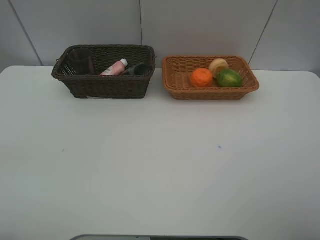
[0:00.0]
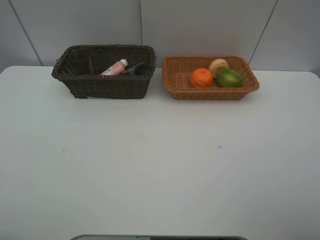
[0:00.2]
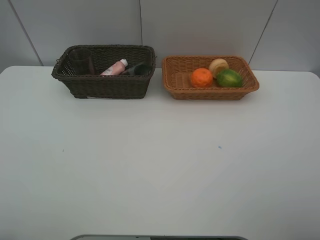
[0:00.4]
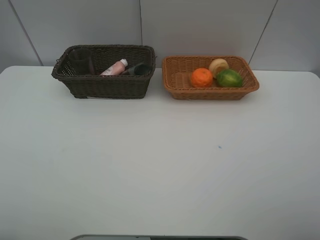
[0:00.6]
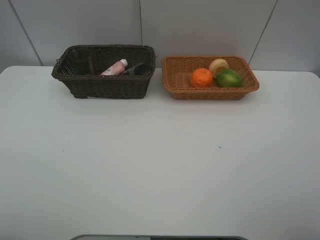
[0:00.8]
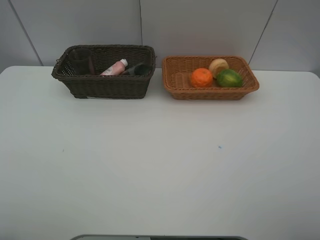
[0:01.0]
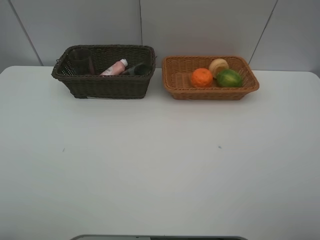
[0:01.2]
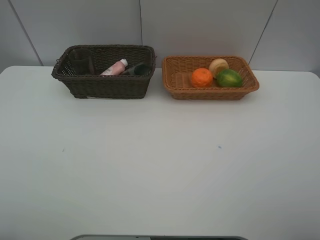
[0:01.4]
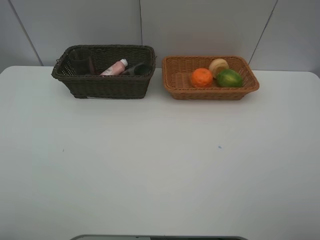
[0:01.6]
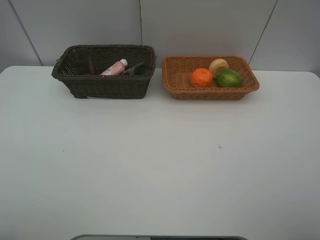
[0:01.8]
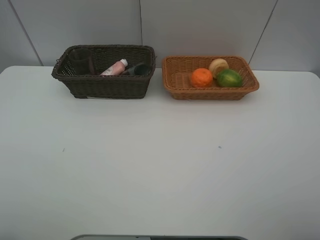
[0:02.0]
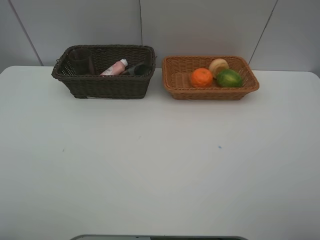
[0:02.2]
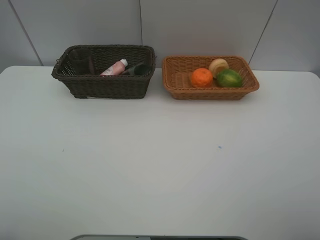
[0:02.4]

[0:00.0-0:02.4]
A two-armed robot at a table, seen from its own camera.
Task of the whole recording: place multiple objects separately in different baskets.
0:01.2 to 0:02.4: The two grippers keep their place.

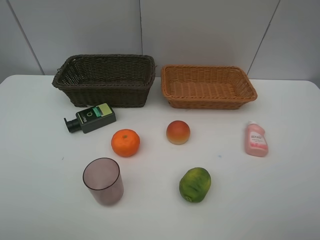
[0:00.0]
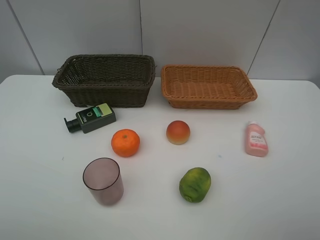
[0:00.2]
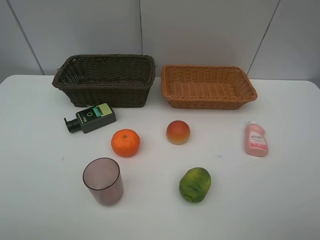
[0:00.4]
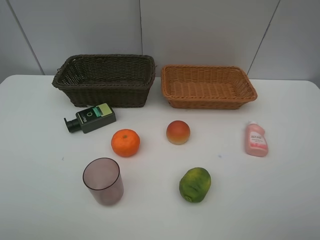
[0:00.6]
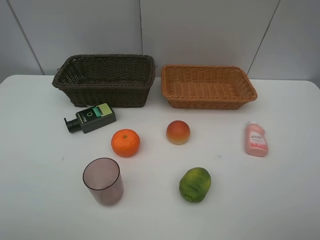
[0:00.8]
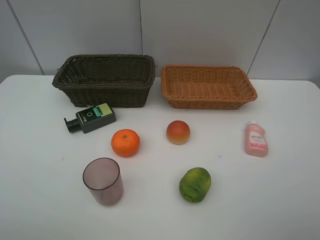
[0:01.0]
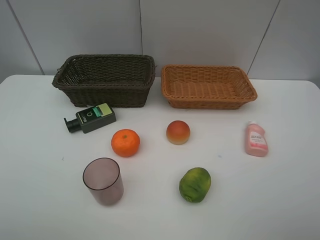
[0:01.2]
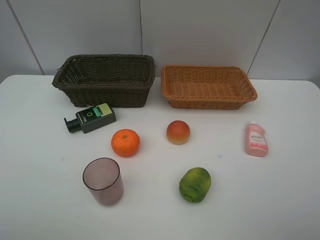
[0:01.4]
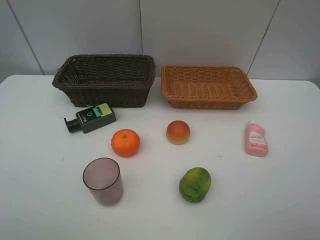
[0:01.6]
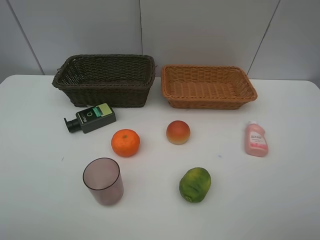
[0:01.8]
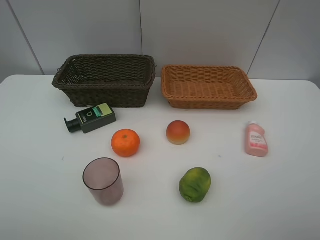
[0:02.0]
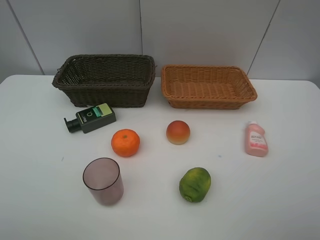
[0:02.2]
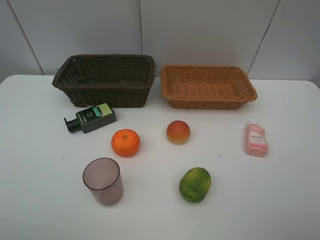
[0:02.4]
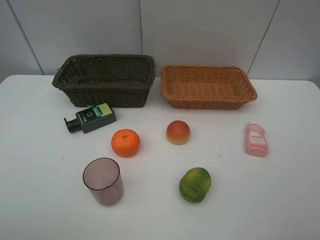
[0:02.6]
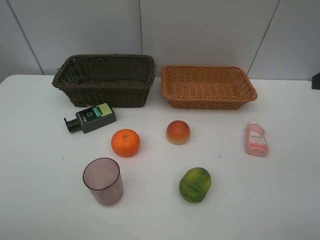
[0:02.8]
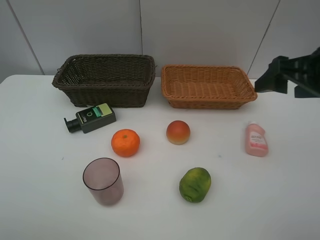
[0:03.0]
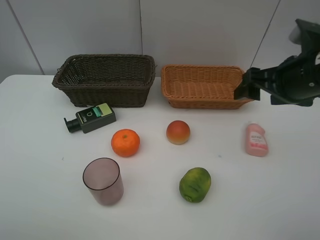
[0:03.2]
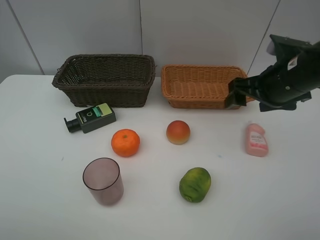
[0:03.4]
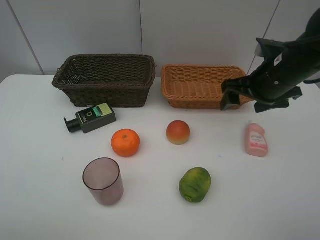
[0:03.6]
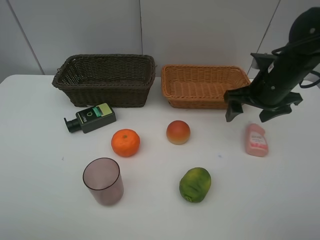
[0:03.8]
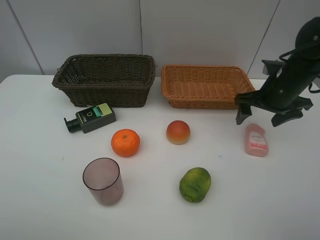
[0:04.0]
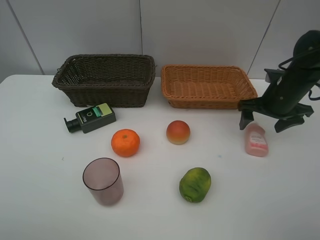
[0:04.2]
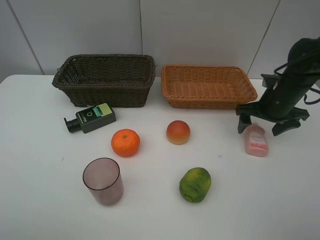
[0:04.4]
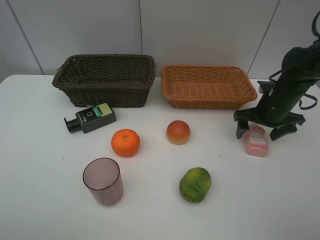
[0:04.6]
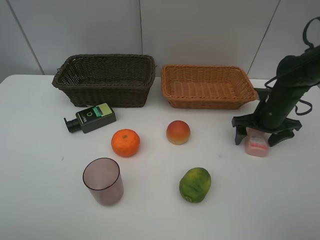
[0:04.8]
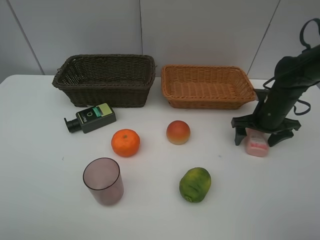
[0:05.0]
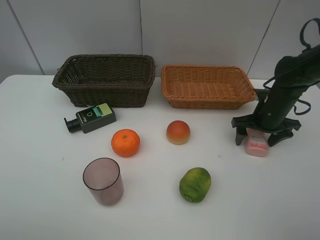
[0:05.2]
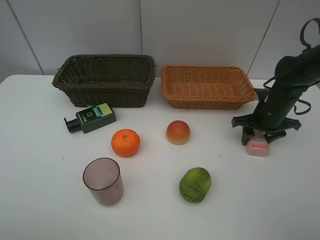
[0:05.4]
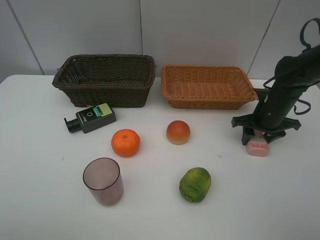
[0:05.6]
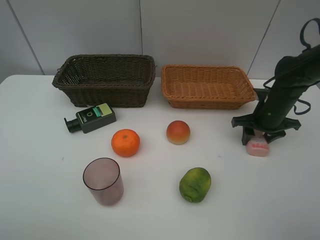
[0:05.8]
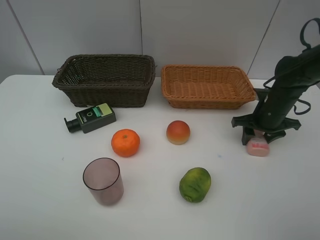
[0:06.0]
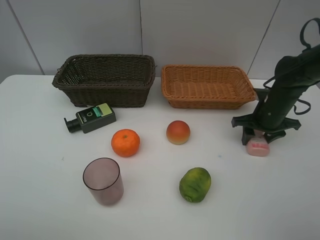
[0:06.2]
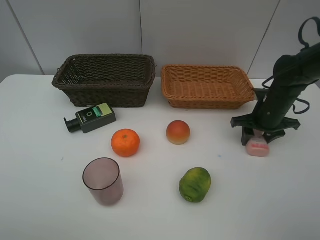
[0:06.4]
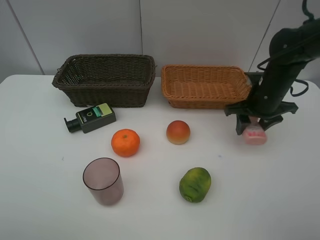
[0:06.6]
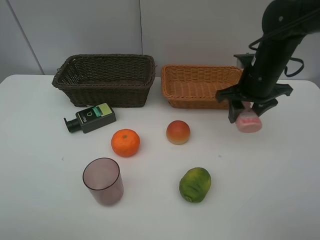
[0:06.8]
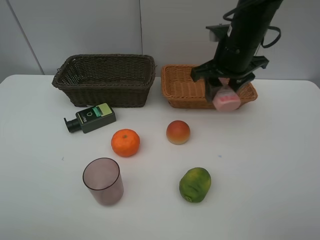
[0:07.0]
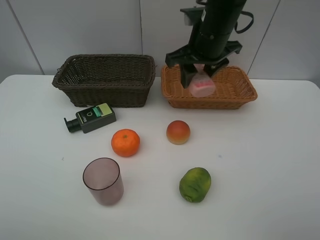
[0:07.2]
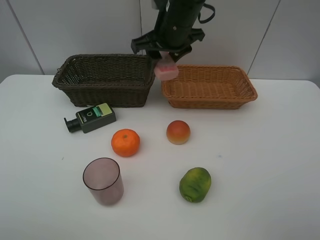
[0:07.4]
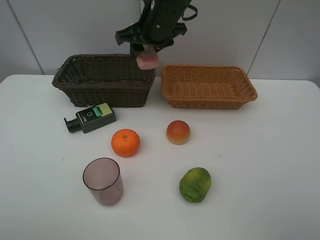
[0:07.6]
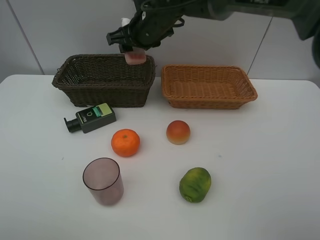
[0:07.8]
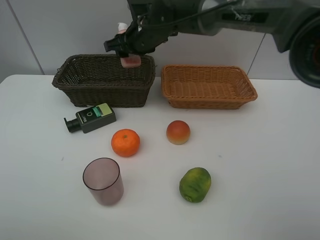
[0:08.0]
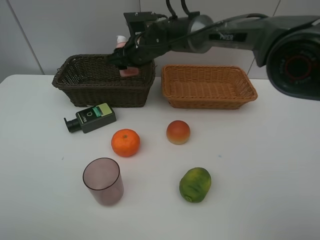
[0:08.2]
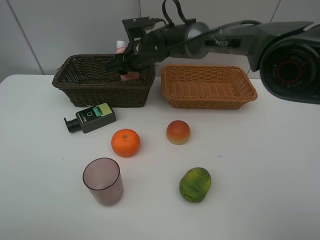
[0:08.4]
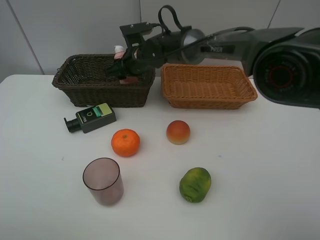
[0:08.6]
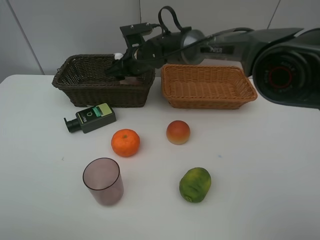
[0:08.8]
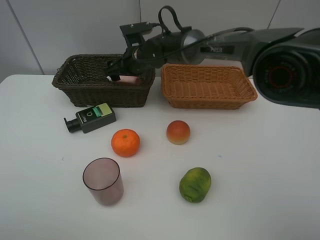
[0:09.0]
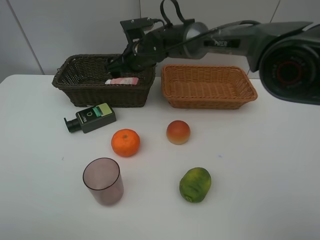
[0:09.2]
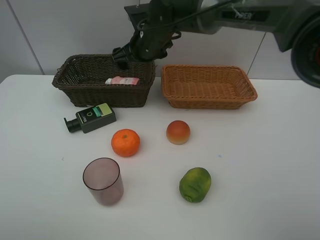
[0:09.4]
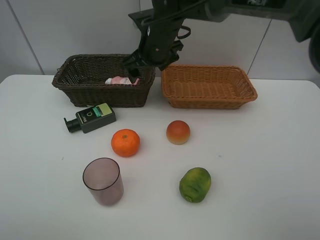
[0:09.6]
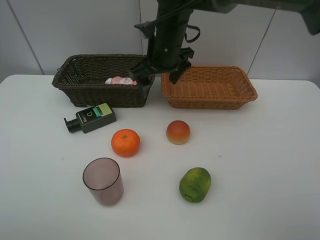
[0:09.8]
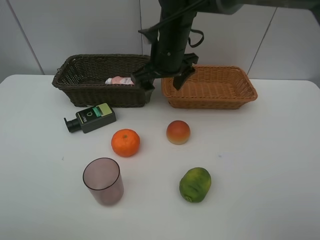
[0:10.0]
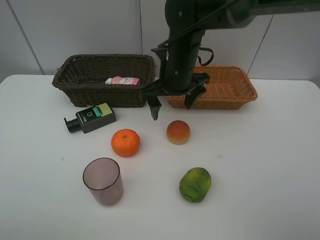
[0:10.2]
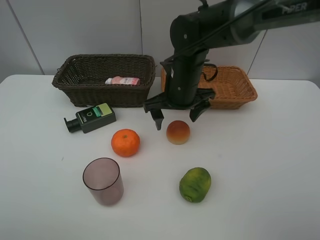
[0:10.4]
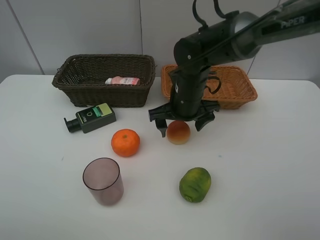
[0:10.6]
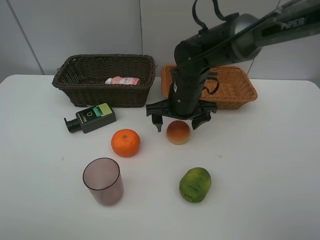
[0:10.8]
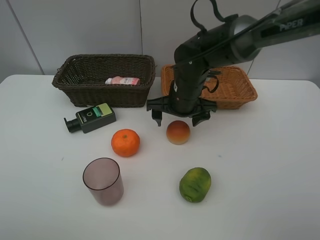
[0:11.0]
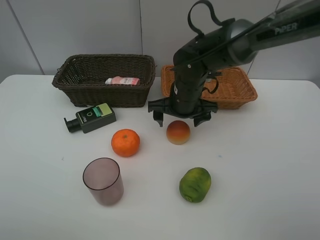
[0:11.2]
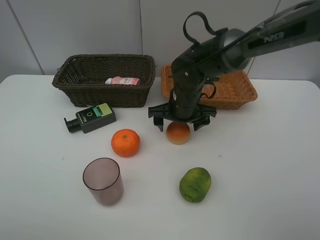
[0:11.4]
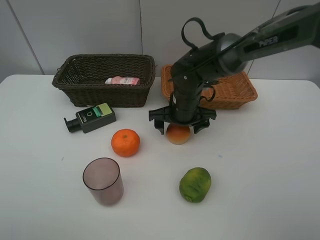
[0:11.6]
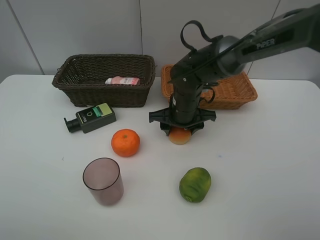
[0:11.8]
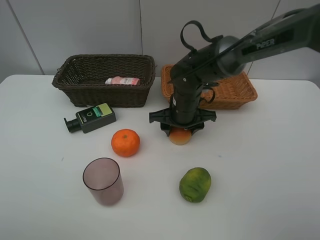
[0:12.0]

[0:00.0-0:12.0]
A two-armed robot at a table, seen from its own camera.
Task of the whole recording: place multiple objects separately in different baskets.
0:00.0 to 0:01.6: Neither gripper changes place.
0:01.6 to 0:03.0: The right gripper moves forward, about 20 cm.
0:03.0 to 0:04.4: The right gripper goes approximately 20 cm downward and forward.
0:04.4 to 0:06.0: The right gripper closes.
0:06.0 to 0:07.6: The right gripper heads to the left and upward, covering about 30 cm.
0:07.6 to 0:09.0: The right gripper goes some 10 cm downward, and opens its fingers.
0:09.0 to 0:10.4: The right gripper travels backward and to the right by approximately 15 cm.
0:10.4 to 0:12.0: The right gripper moves downward, roughly 5 cm, and closes up.

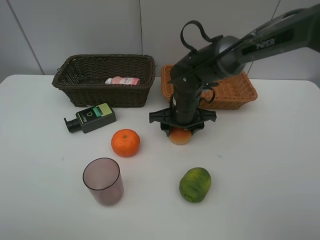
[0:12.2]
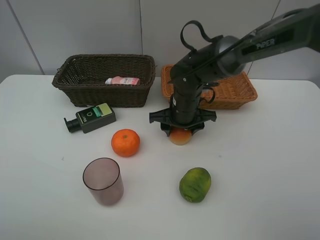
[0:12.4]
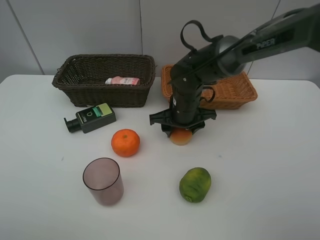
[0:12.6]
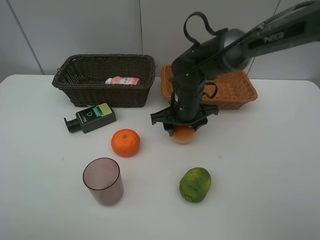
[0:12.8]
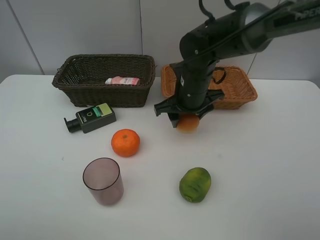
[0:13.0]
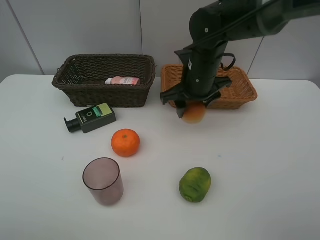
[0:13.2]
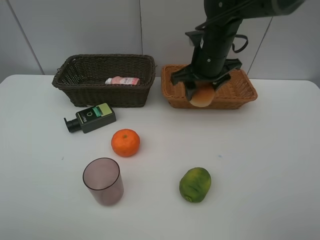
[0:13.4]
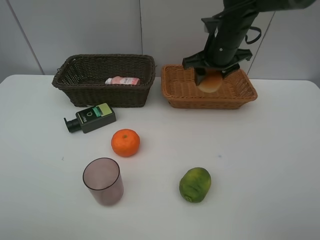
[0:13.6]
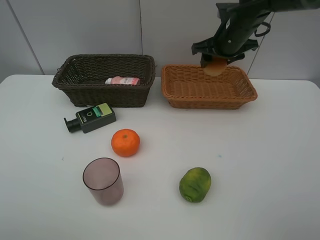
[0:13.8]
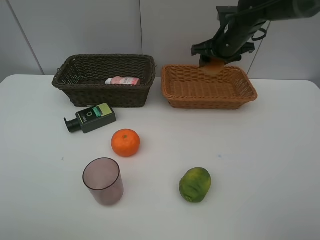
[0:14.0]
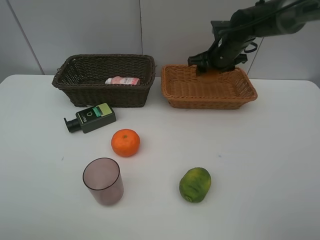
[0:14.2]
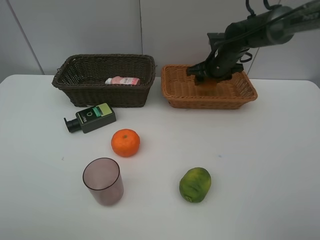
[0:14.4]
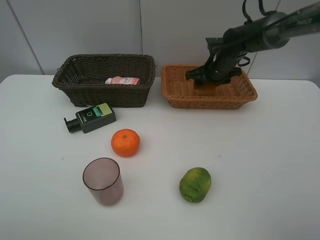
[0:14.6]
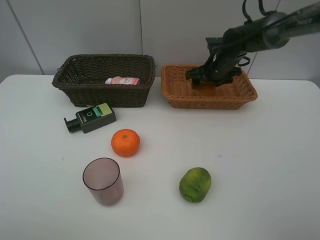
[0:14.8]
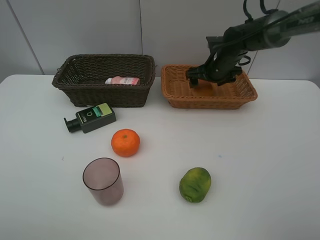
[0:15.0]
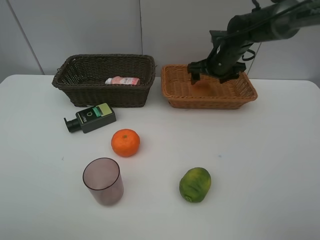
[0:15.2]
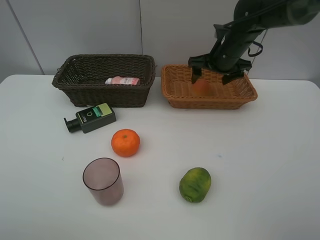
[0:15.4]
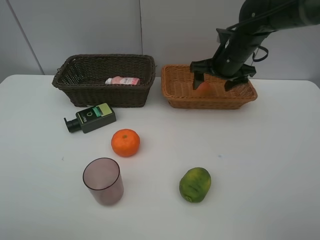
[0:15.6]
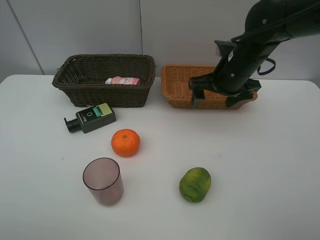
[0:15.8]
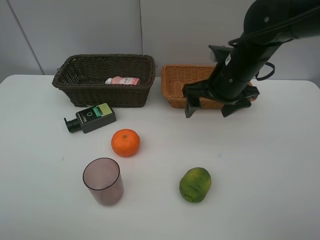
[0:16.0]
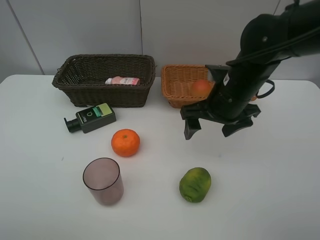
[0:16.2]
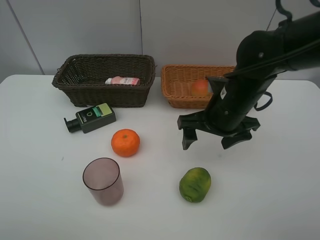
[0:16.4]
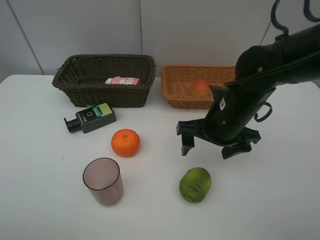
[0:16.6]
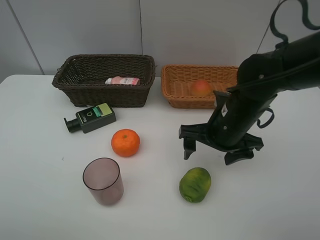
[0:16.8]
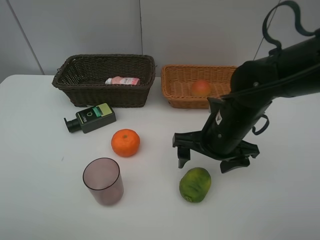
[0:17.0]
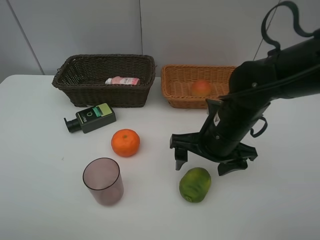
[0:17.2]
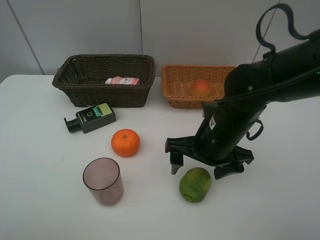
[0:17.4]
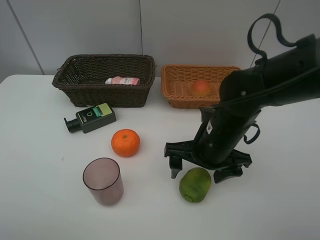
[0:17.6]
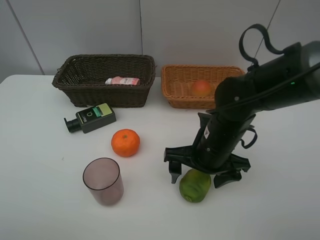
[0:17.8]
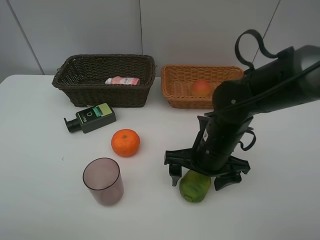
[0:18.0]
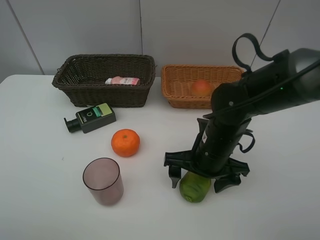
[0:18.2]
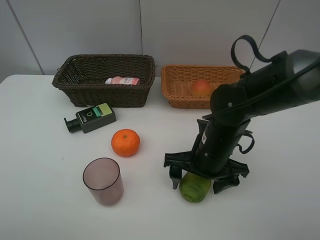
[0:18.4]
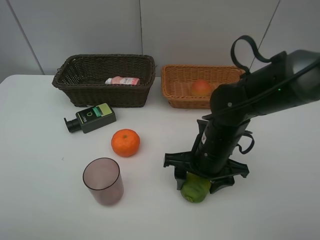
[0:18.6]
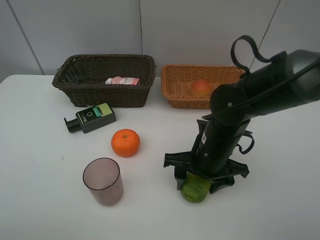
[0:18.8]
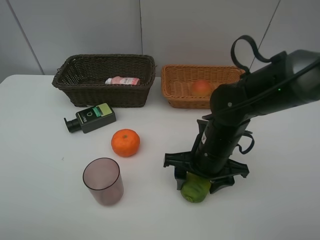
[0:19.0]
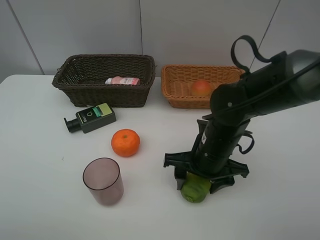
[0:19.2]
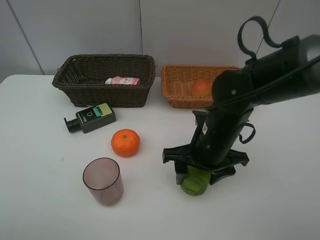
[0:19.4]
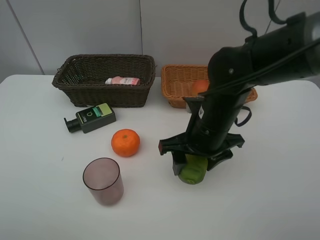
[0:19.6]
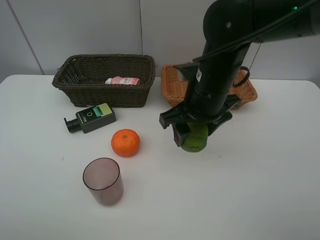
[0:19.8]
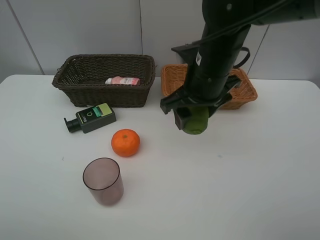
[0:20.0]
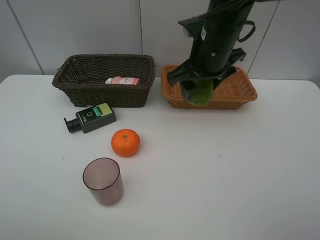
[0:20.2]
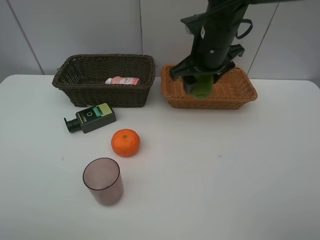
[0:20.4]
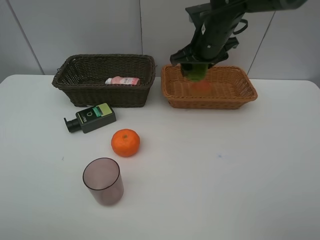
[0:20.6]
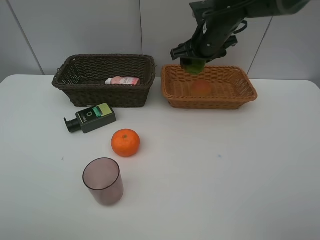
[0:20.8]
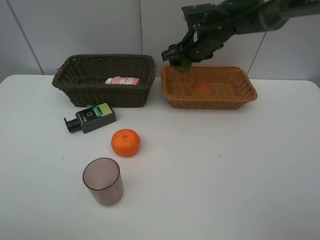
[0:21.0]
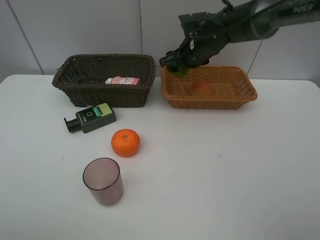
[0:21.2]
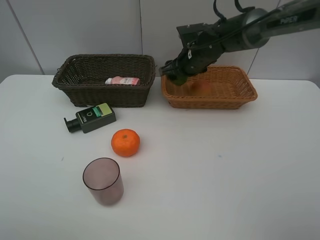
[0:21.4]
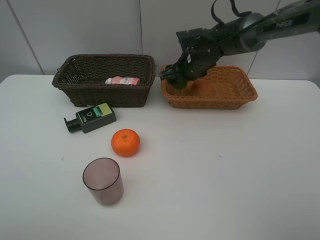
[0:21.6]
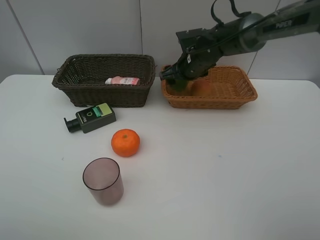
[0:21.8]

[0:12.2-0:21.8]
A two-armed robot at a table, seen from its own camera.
Task of the whole recording: place multiple objects separately in different baskets.
0:12.2 to 0:13.8: The right gripper is displaced upward, to the right and forward by roughly 20 cm.
0:13.8 to 0:15.4: The right gripper opens.
0:15.4 to 0:17.0: The right gripper goes some 20 cm backward.
0:17.0 to 0:18.6: The right gripper closes its fingers.
0:18.6 to 0:20.2: The right gripper is displaced upward and forward by some 20 cm.
0:20.2 to 0:21.8: The right gripper is displaced forward and downward by about 15 cm.
